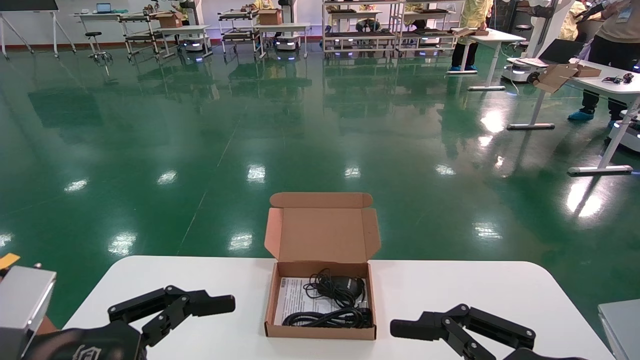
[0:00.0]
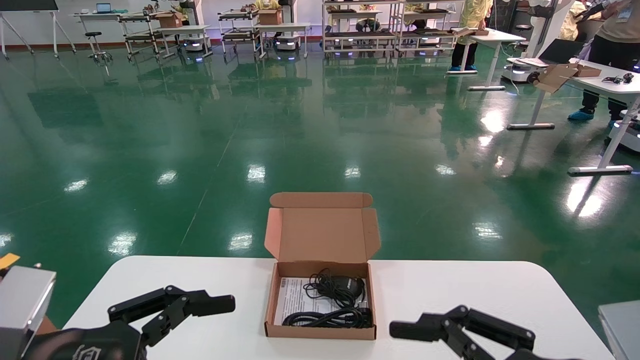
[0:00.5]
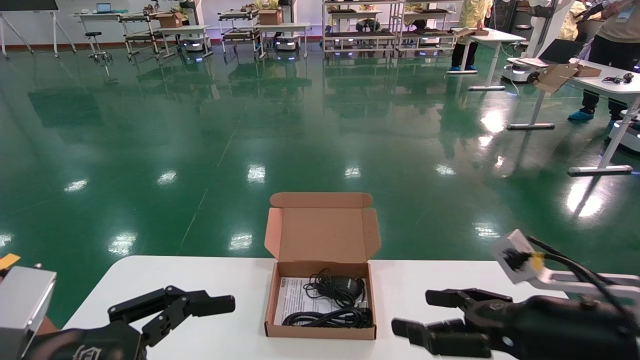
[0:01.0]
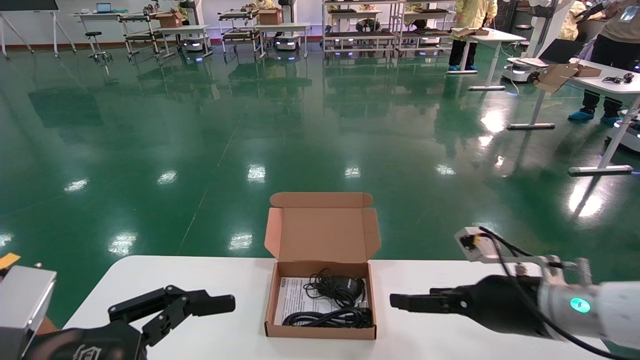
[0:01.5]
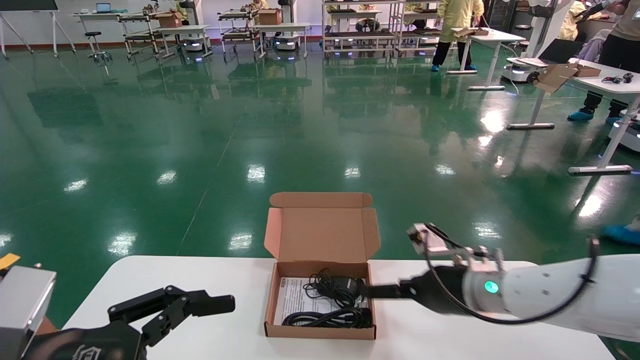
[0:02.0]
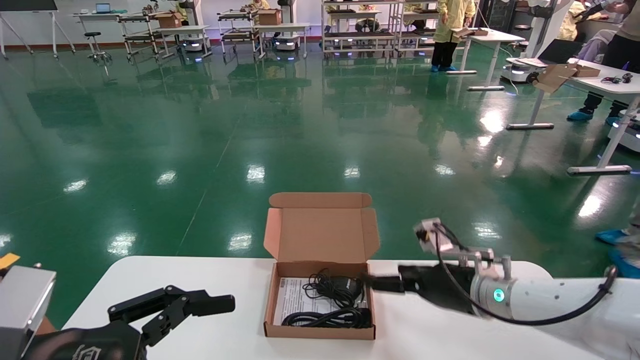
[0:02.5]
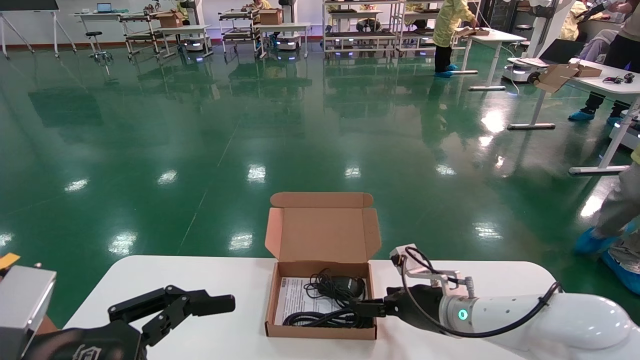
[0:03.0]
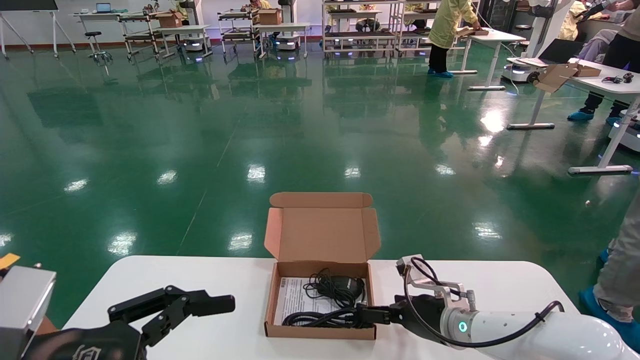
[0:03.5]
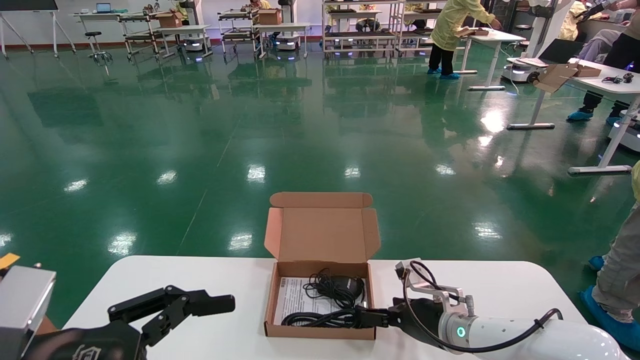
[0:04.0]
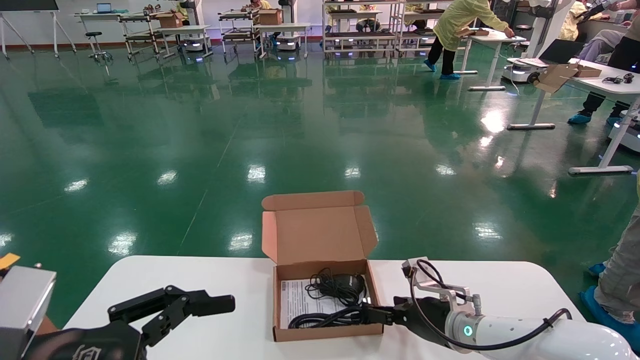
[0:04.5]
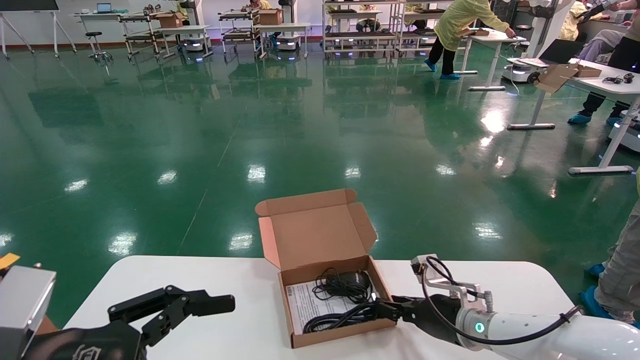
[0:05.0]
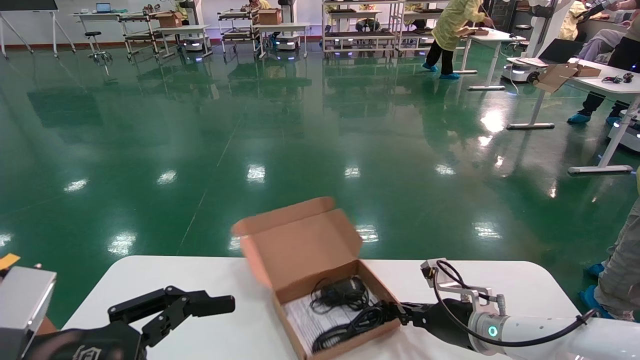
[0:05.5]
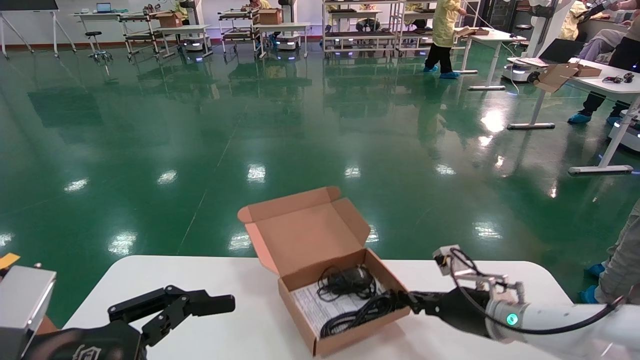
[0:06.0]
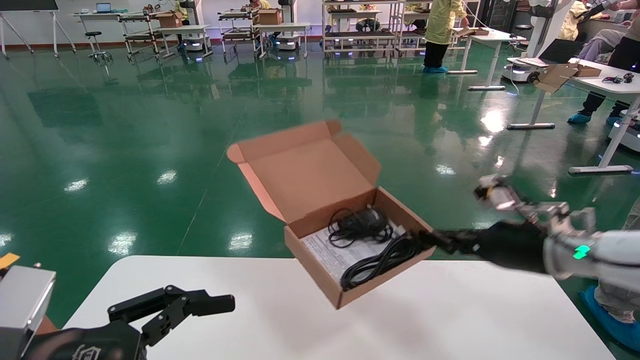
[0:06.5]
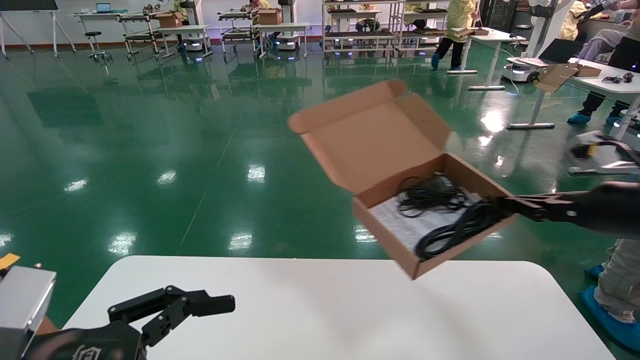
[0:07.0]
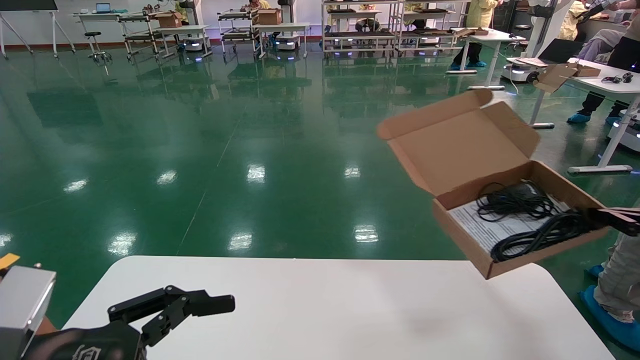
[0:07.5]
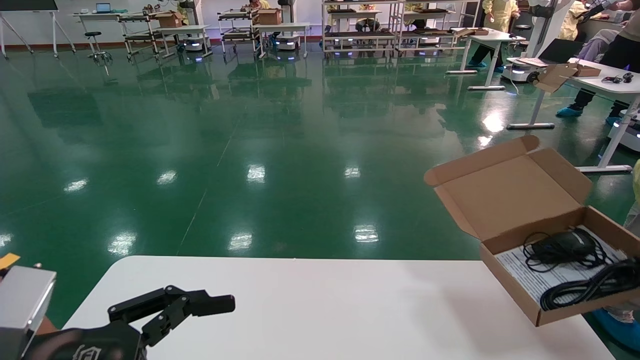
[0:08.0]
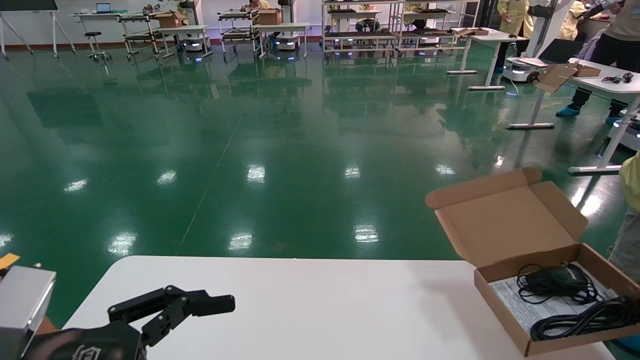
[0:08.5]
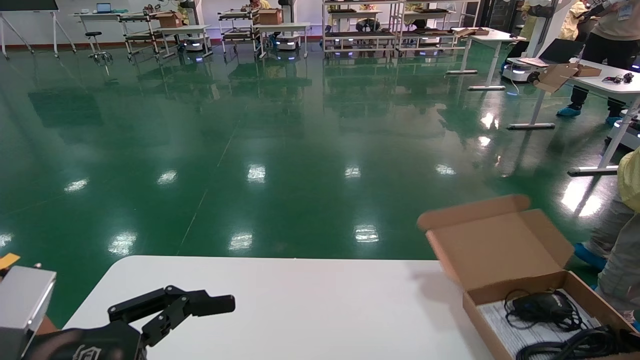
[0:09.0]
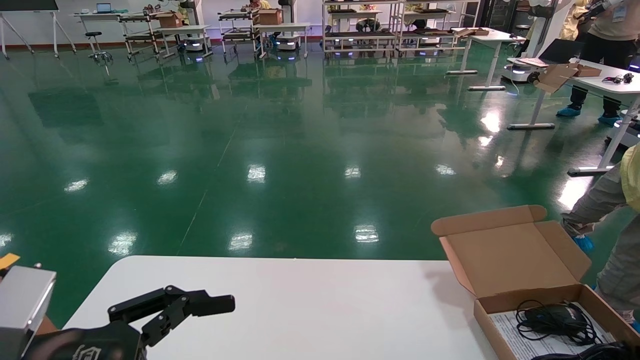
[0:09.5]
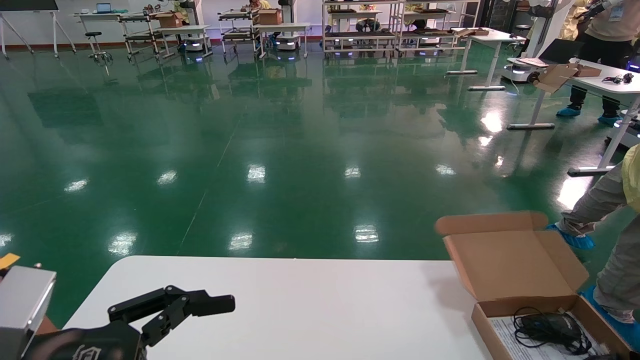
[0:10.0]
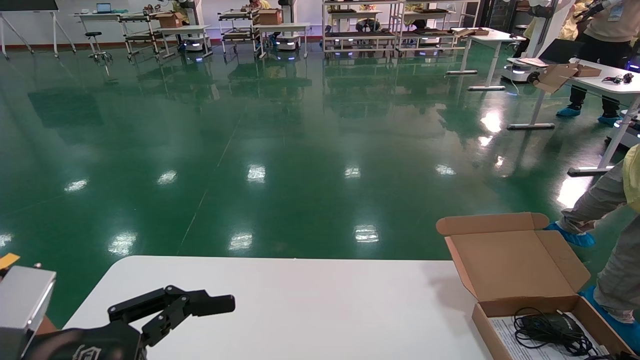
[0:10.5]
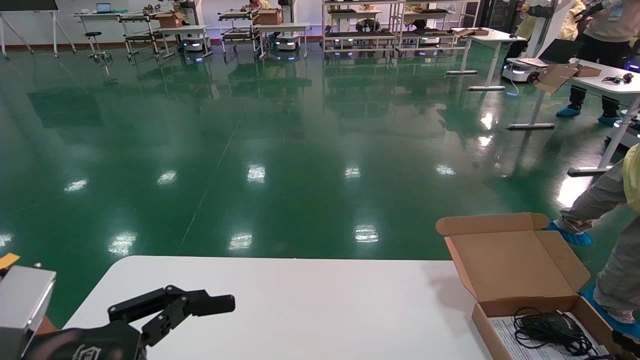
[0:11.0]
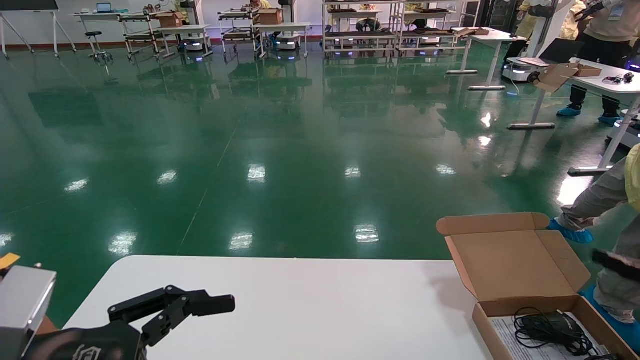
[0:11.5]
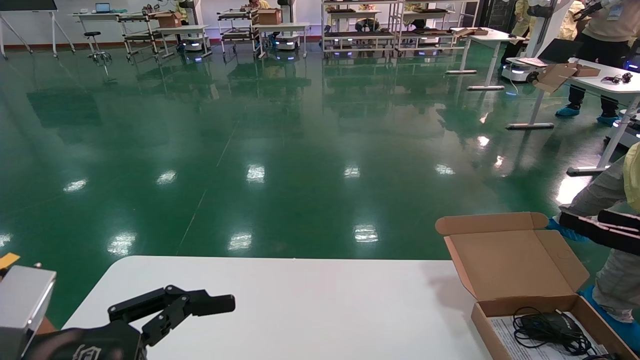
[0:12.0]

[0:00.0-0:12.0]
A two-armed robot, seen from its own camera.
Task of the whole recording: move the position of the storage box with accessories on the table.
Step, 0:01.0 to 0:05.5: Grab and pick up the open mouse box from the accessory packaging area.
Step, 0:06.0 to 0:10.0: Place the open mouse box onto the operation table.
0:00.0 to 0:02.0: The right gripper heads forward, covering some 25 cm.
0:02.0 to 0:04.0: The right gripper travels downward and forward by roughly 10 cm.
0:04.0 to 0:06.0: The right gripper heads to the right, covering about 5 cm, and closes its fingers.
0:06.0 to 0:08.0: The right gripper is displaced to the right and backward by approximately 35 cm.
0:08.0 to 0:10.0: The right gripper moves downward, about 15 cm.
0:10.0 to 0:12.0: The right gripper heads upward and to the left, covering roughly 20 cm, and opens its fingers.

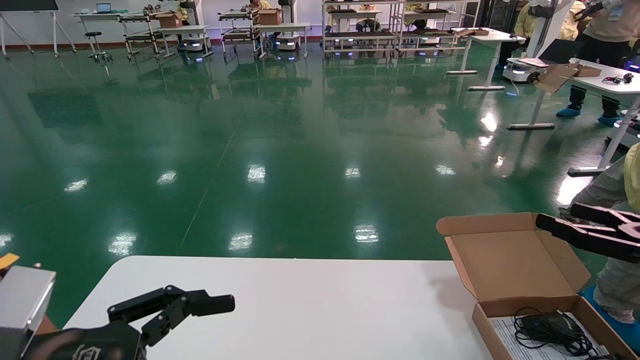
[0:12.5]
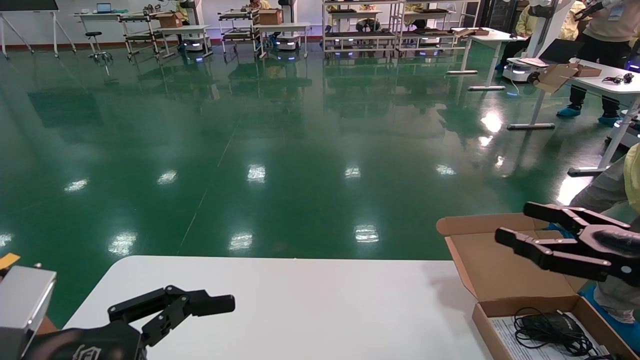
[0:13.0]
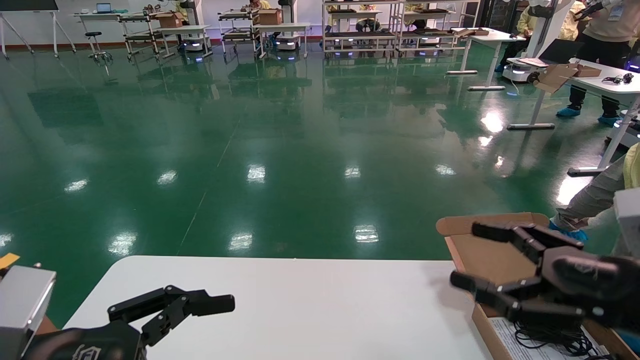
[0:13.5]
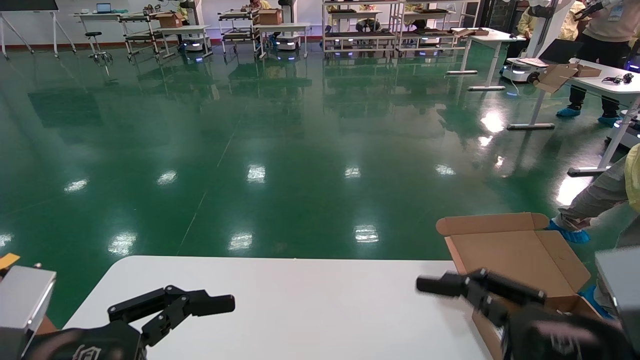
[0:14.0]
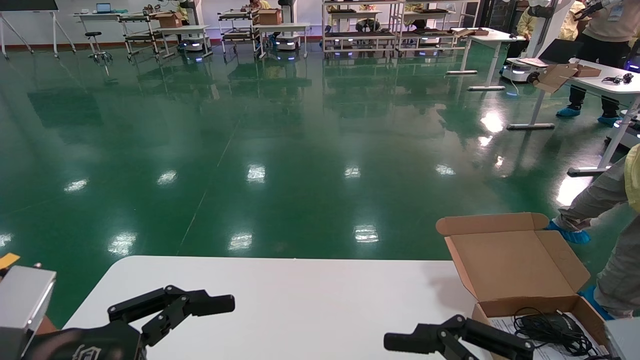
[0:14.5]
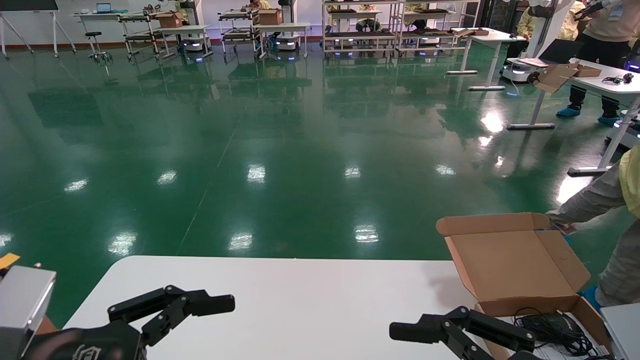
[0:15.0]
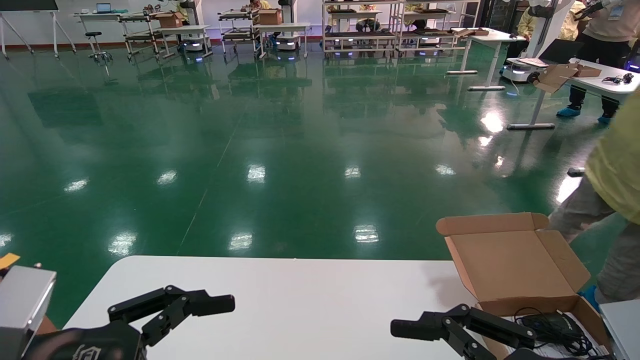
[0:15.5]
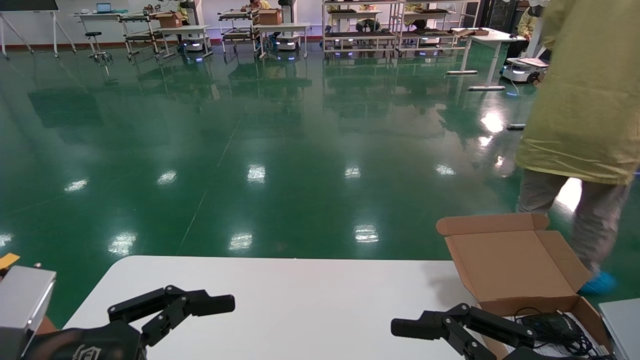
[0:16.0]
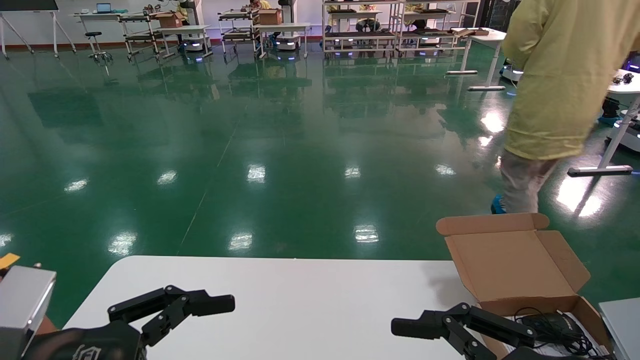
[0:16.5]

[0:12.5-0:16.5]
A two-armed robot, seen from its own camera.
Task of the whole recording: move the position of the storage box with accessories on the table.
0:12.5 to 0:14.5: The right gripper shifts roughly 25 cm to the left and backward.
0:14.5 to 0:16.5: Neither gripper changes place.
